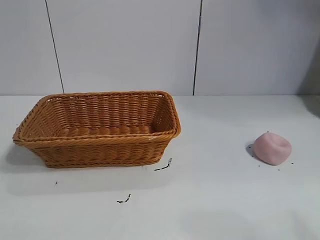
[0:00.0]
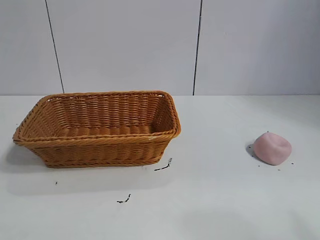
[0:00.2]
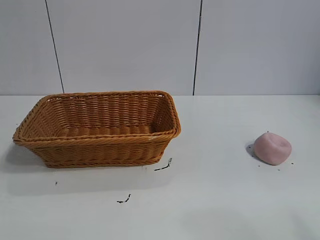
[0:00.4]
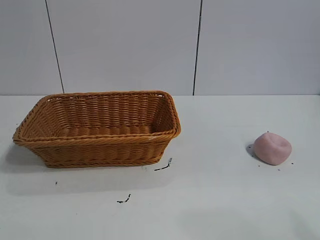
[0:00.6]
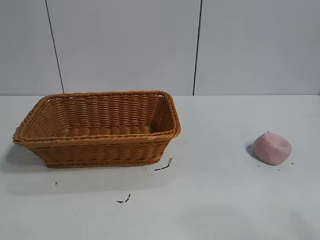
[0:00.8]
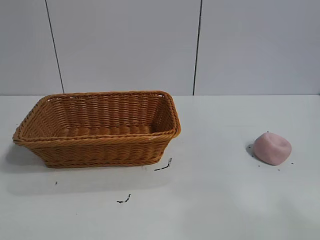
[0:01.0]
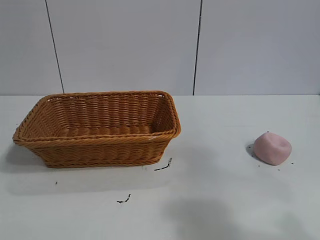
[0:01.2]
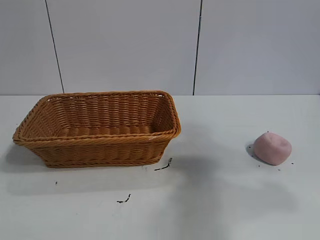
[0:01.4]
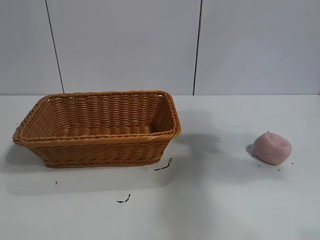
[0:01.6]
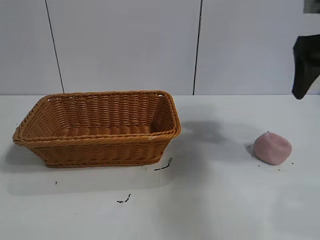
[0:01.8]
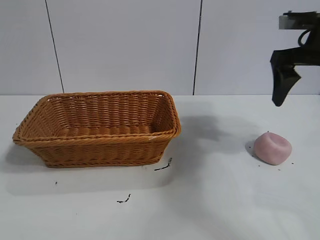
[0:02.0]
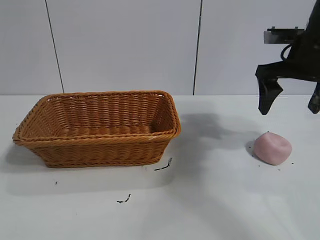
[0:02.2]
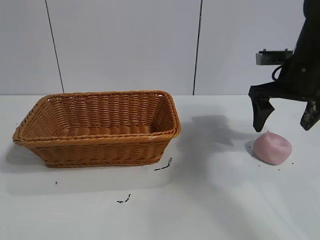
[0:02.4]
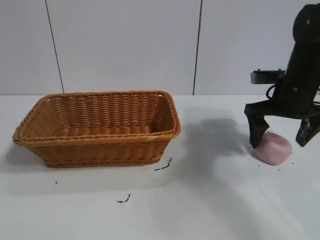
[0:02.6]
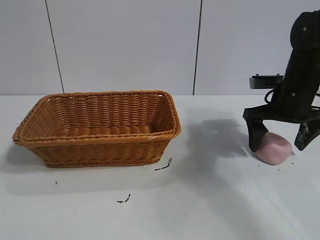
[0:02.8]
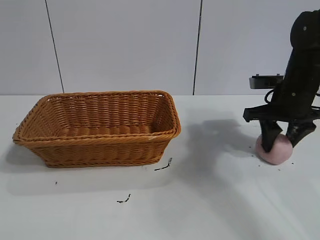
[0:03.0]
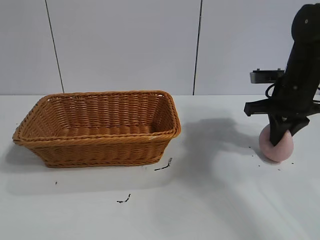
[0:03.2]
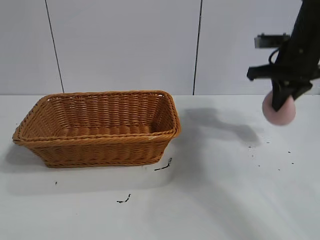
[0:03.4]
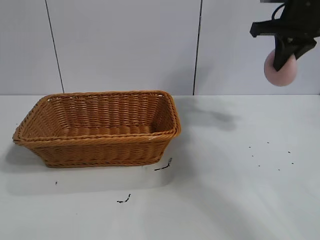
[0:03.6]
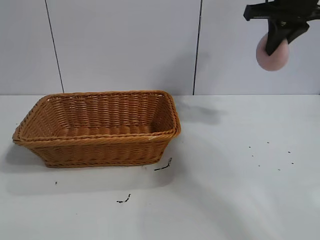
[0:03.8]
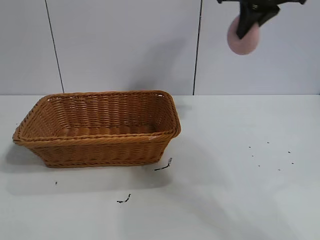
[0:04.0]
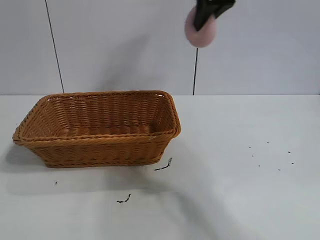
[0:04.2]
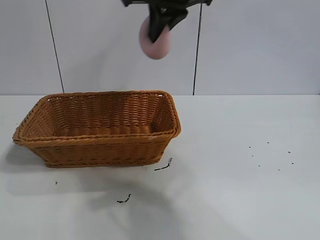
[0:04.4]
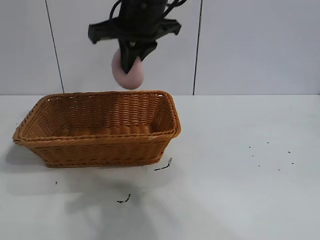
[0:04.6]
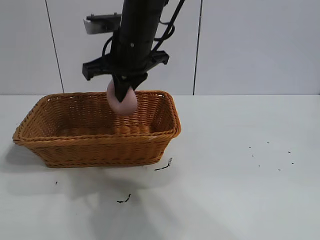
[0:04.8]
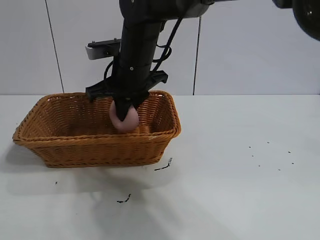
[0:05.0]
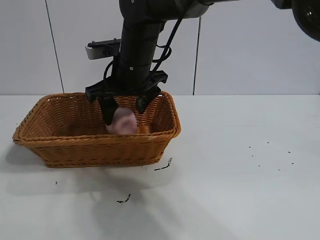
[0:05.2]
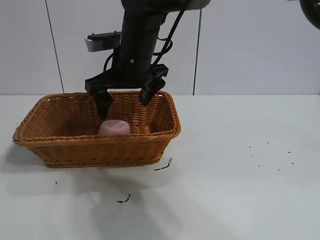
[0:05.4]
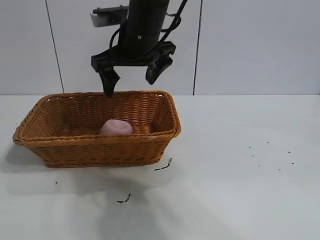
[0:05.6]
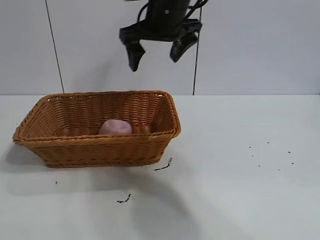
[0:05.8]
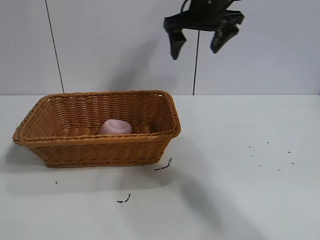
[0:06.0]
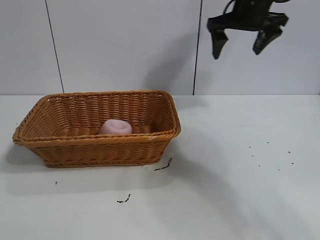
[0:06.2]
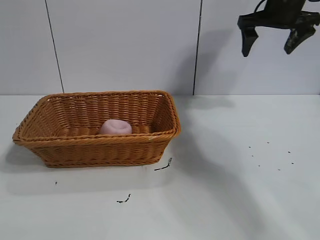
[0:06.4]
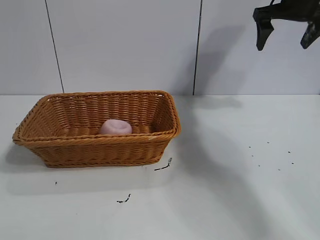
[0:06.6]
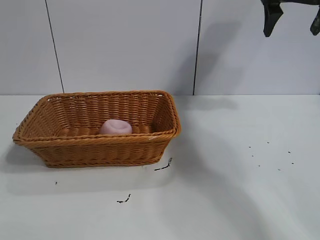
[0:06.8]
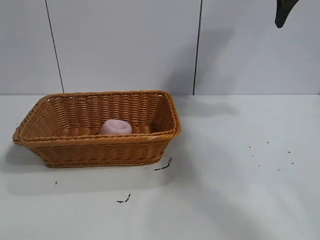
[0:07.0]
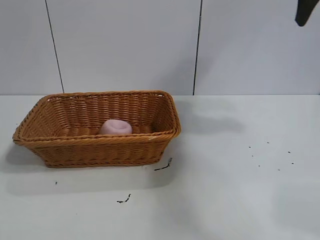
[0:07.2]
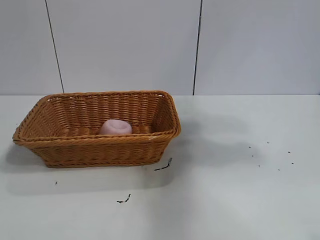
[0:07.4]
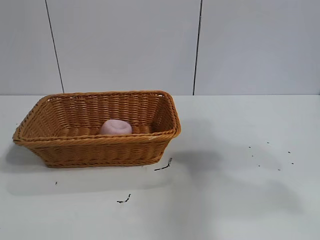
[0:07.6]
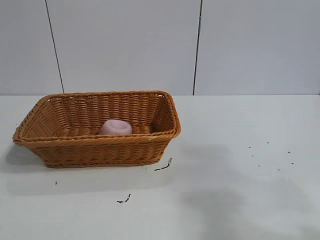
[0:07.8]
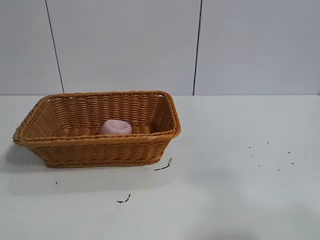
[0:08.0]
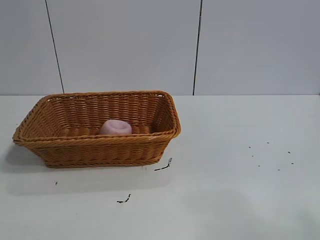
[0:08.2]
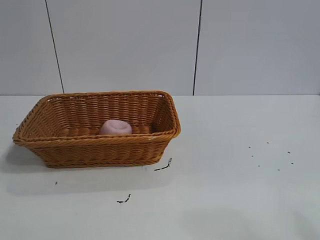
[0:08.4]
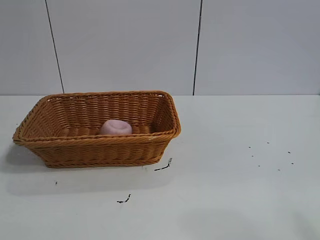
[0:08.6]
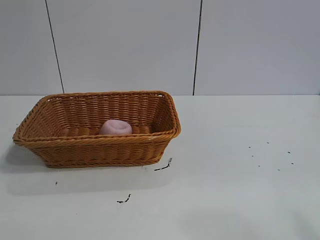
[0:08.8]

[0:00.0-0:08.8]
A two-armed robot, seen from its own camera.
Task of the whole recording: pick up the peach and put it into the basket.
Step, 0:00.8 to 0:03.0: Grasp the peach with right gripper.
Step, 0:03.2 to 0:05.2: Place the peach in the basket with right gripper.
